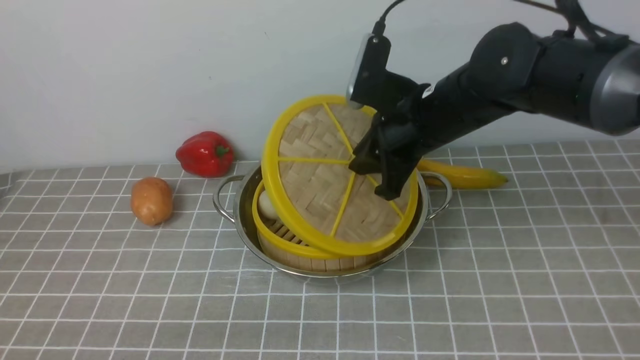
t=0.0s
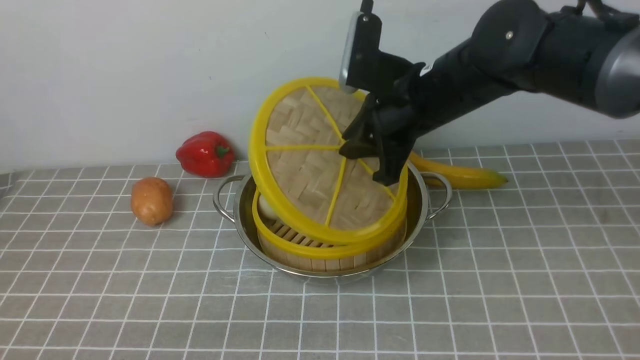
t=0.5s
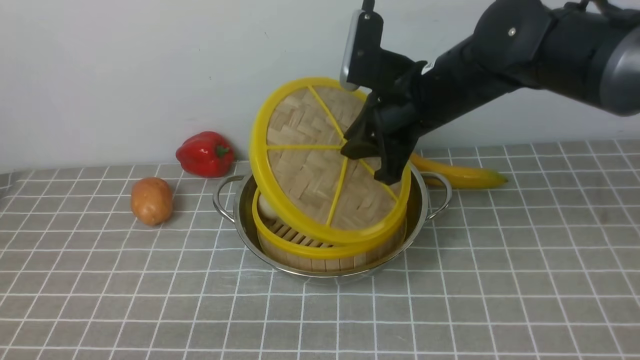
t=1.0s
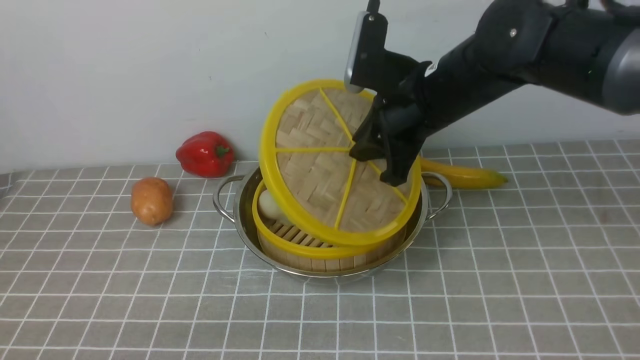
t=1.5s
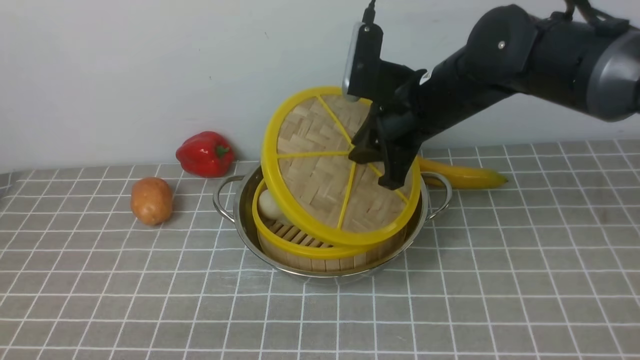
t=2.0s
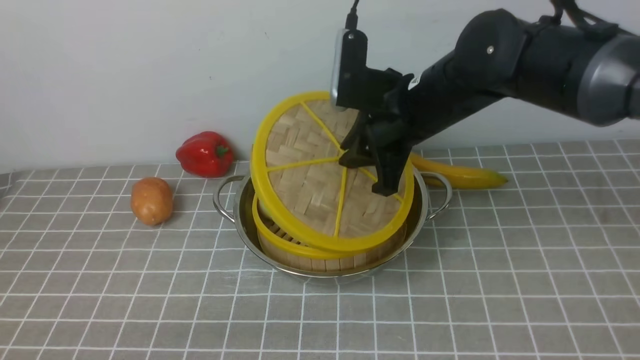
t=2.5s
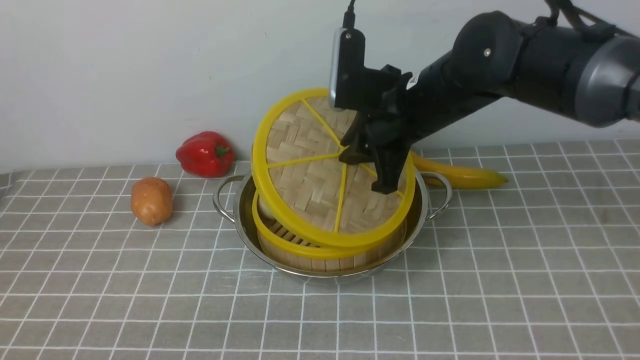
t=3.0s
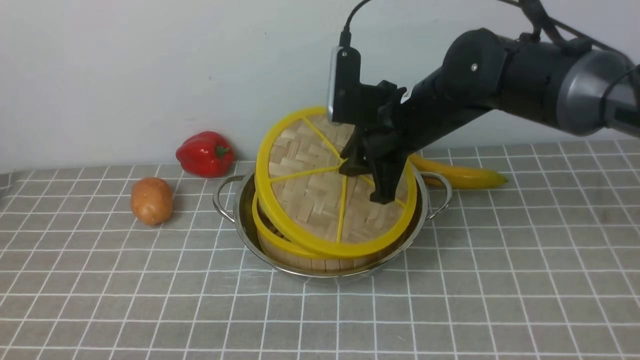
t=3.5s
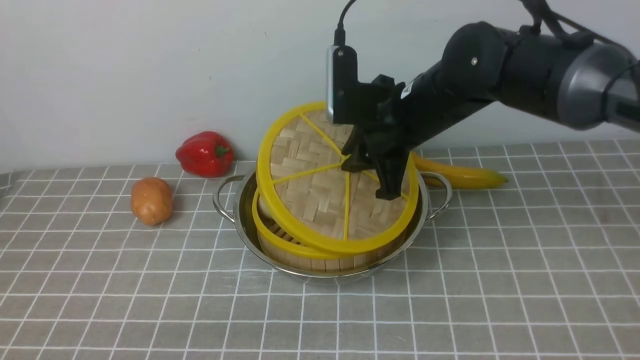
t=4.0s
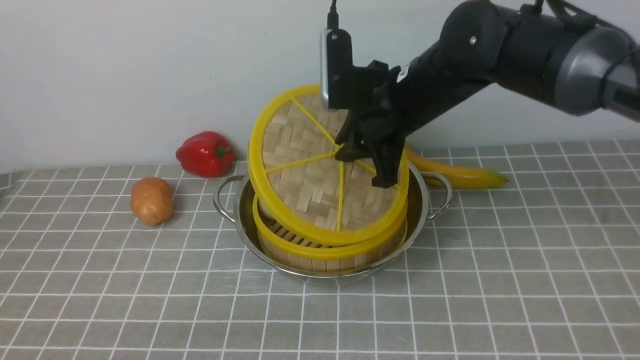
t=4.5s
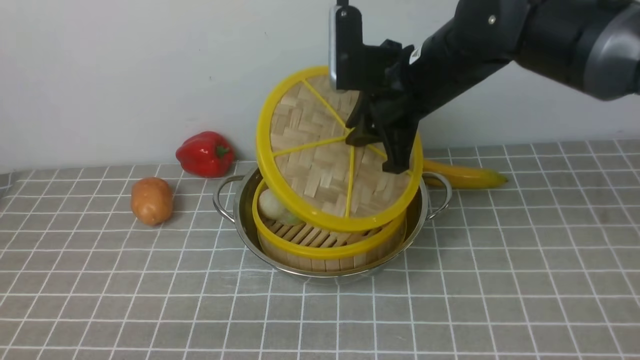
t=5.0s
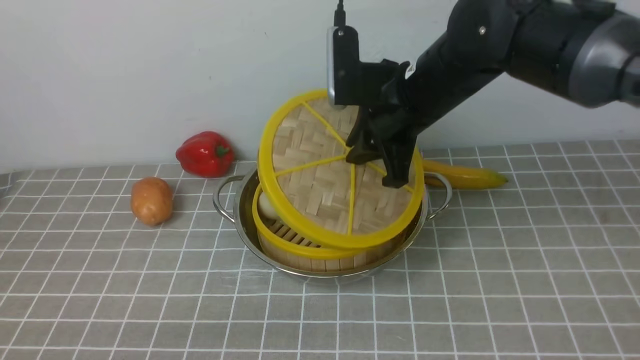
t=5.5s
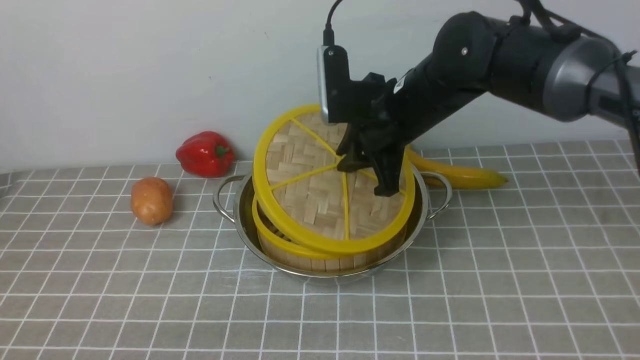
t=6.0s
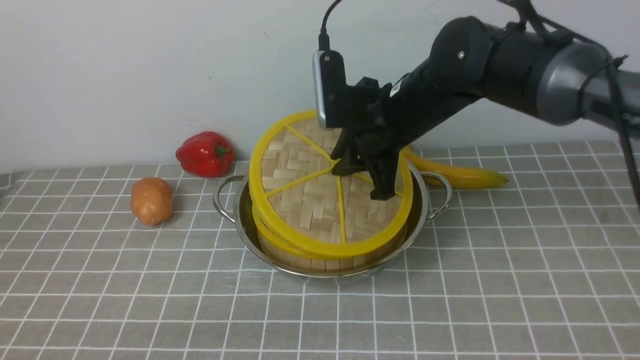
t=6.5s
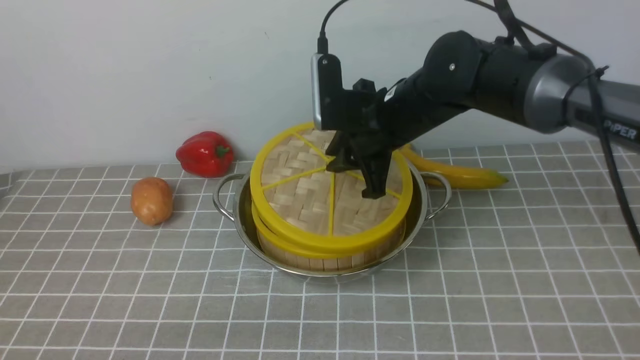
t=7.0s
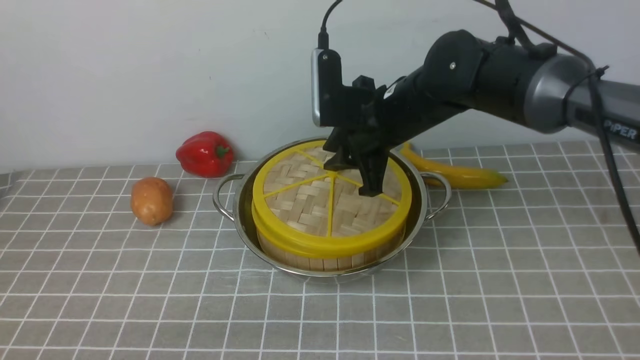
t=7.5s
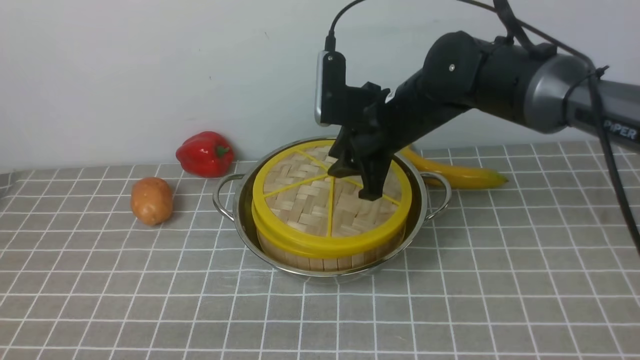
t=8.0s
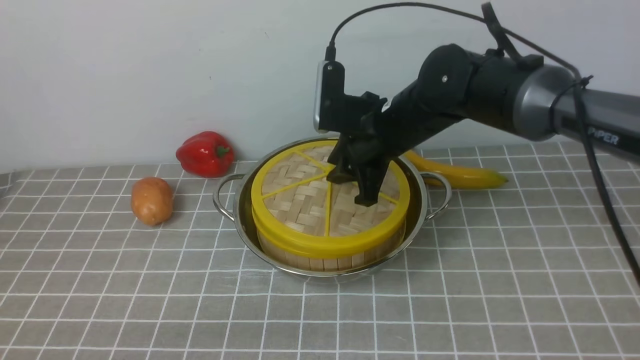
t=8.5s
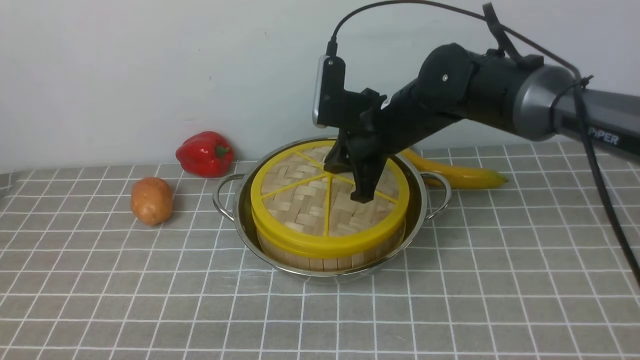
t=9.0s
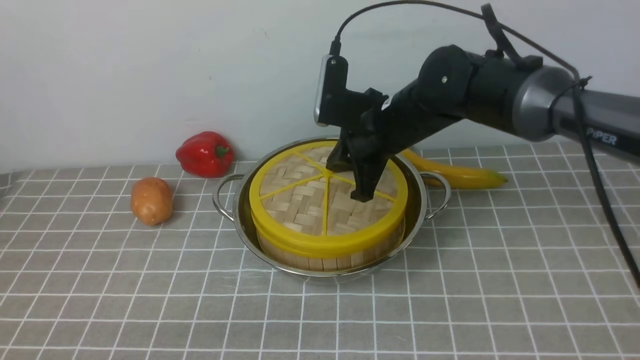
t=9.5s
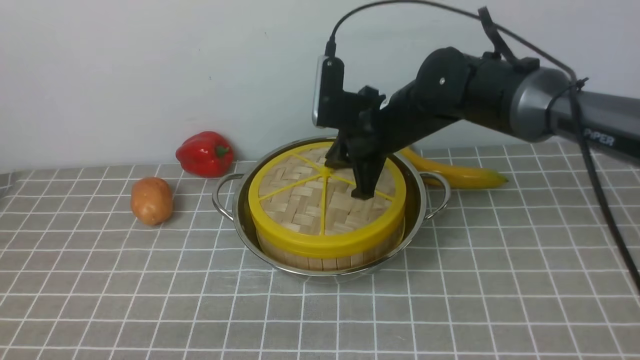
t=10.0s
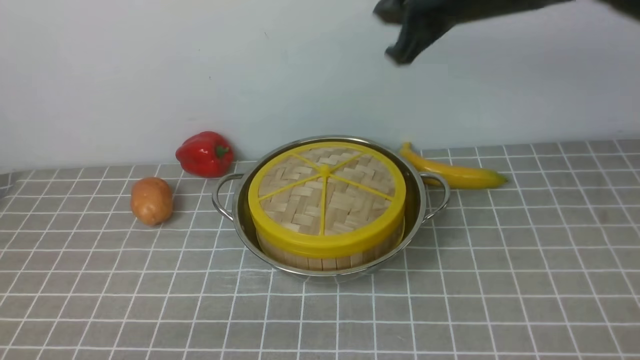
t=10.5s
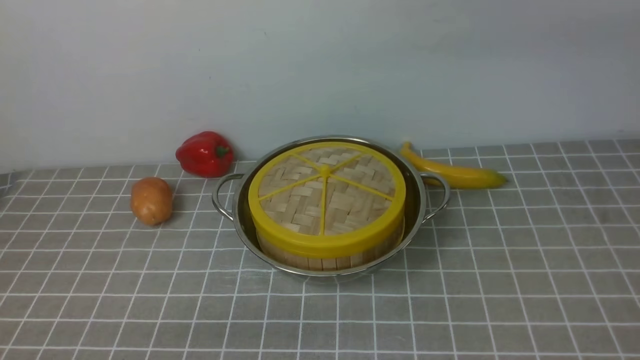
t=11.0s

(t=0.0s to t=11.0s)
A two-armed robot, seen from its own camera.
Task of the whole recording: place the steamer in the pot on the grey tablecloth, and put the lid on the steamer.
Step, t=0.0s - t=10.0s: use the right arm to place the steamer lid on the steamer.
t=0.0s - t=5.5s: There are only small adjustments of the grippers.
t=5.5s - t=7.5s: The right gripper opens its fingers.
t=7.5s - t=9.0s: The right gripper closes.
t=9.0s - t=11.0s: The right gripper is displaced upward and to the right by roughly 25 cm.

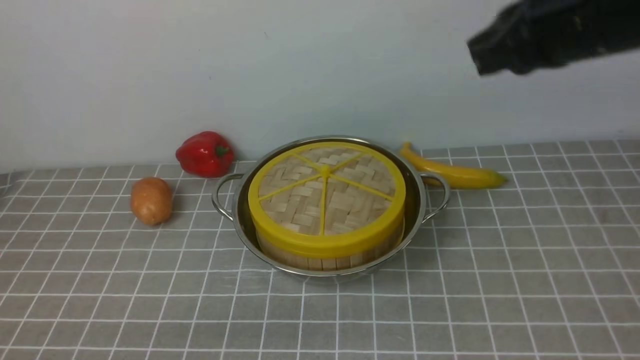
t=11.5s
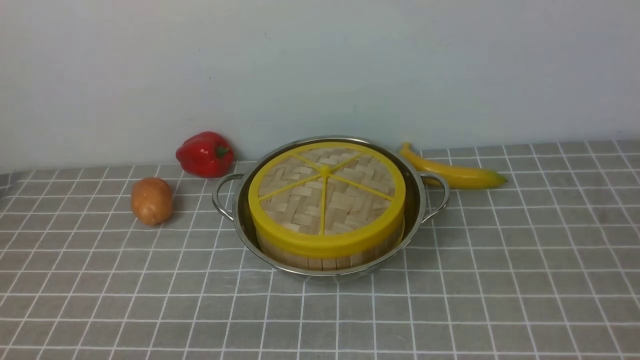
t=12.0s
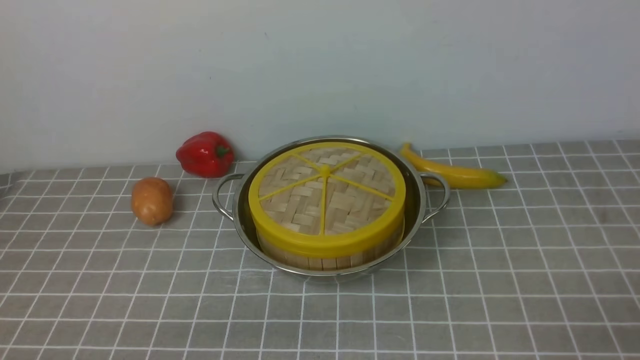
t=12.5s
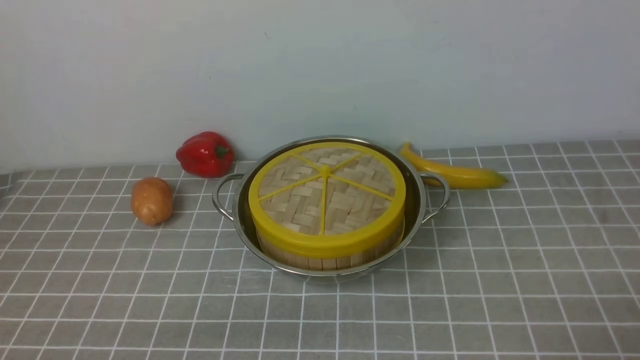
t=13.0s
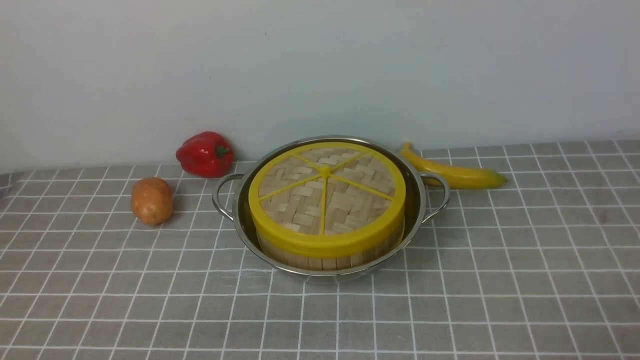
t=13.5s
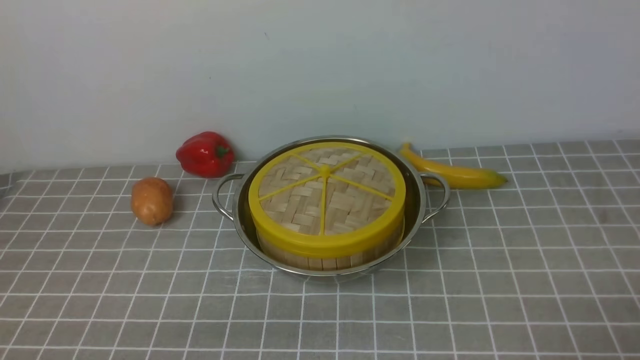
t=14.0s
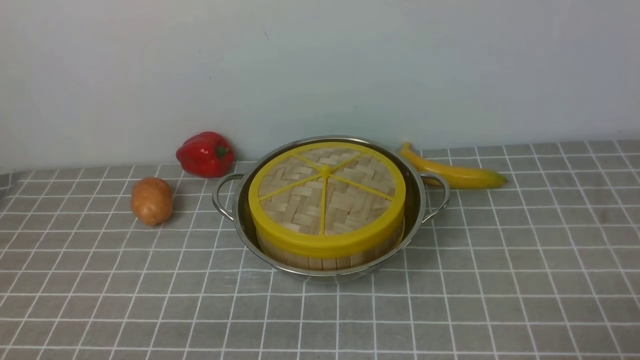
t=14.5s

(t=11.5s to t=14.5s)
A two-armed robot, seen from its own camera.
Task of the whole recording: place the steamer in the pot on the grey tablecloth, and put the lid on the steamer.
t=11.5s - t=13.0s: The right gripper travels backward and downward by some 30 cm, and opens its fingers.
t=13.0s - t=14.5s: Neither gripper changes place.
